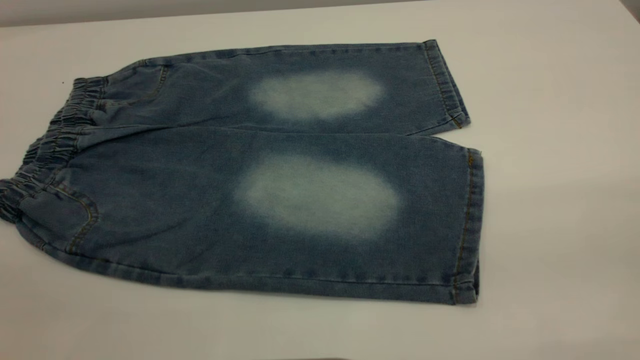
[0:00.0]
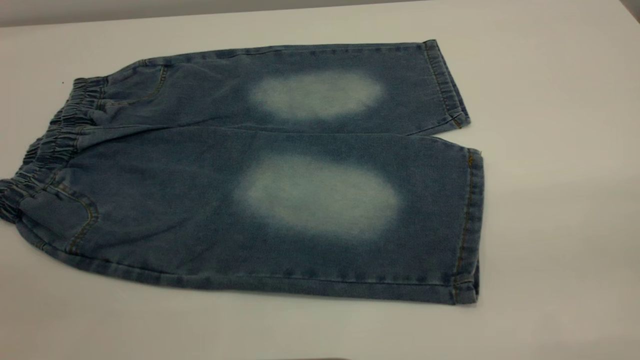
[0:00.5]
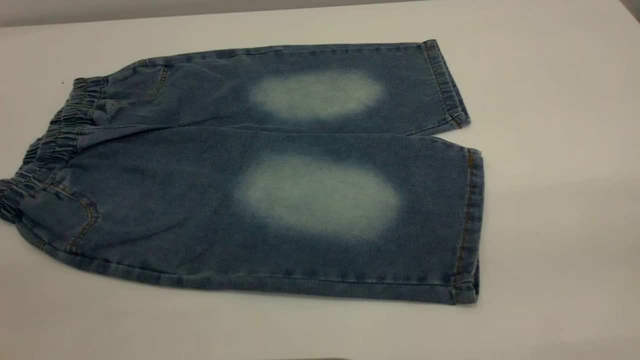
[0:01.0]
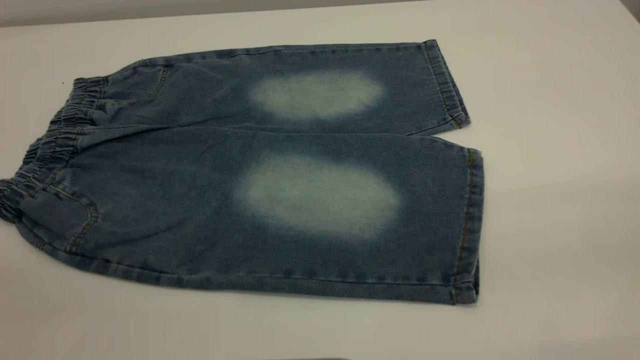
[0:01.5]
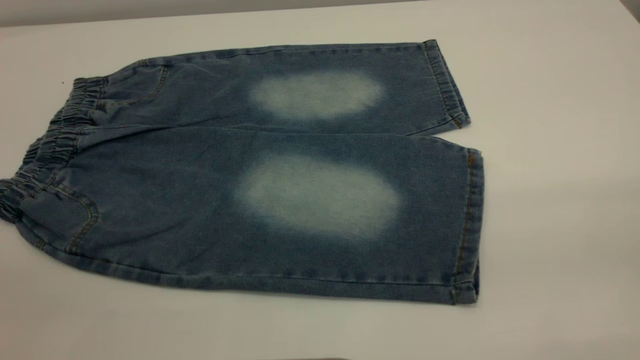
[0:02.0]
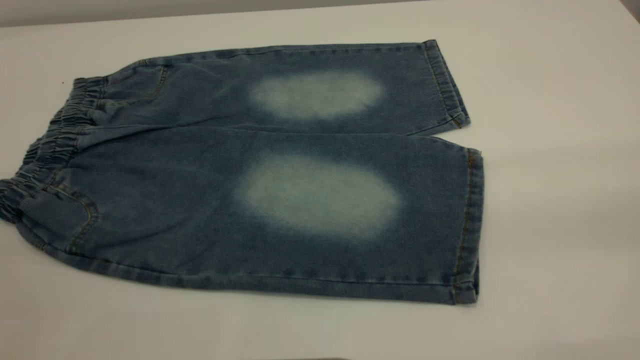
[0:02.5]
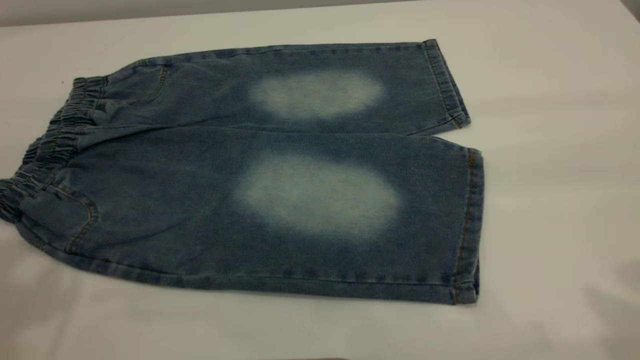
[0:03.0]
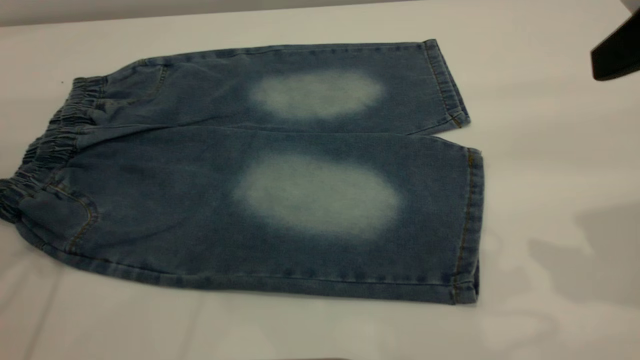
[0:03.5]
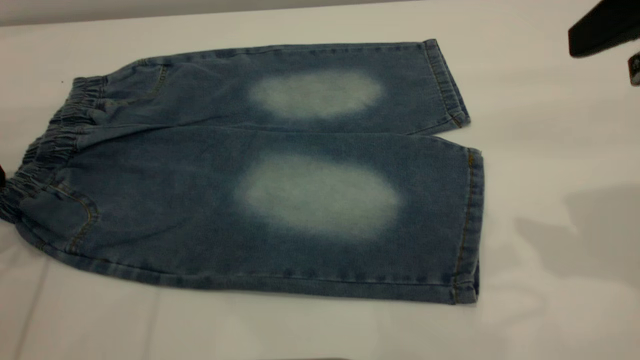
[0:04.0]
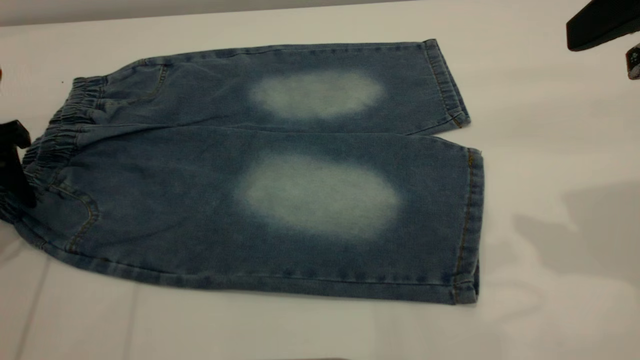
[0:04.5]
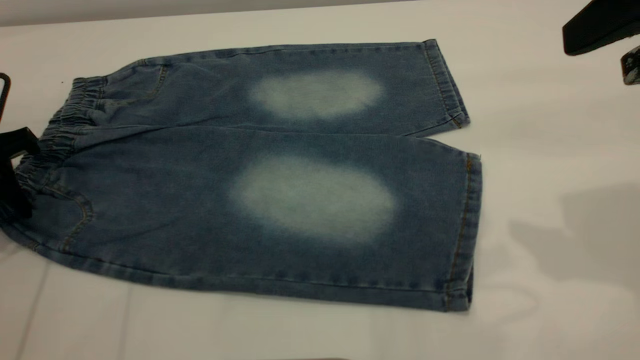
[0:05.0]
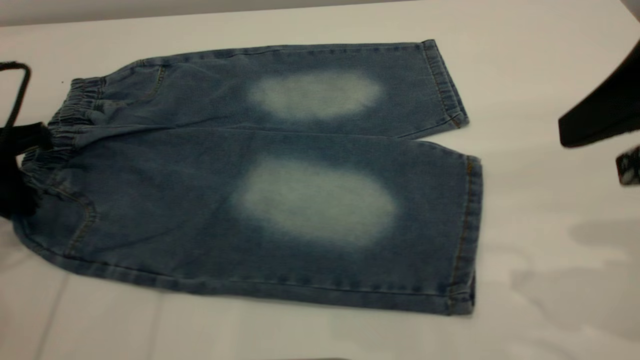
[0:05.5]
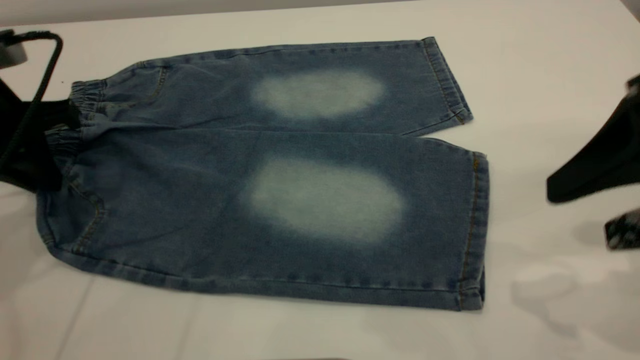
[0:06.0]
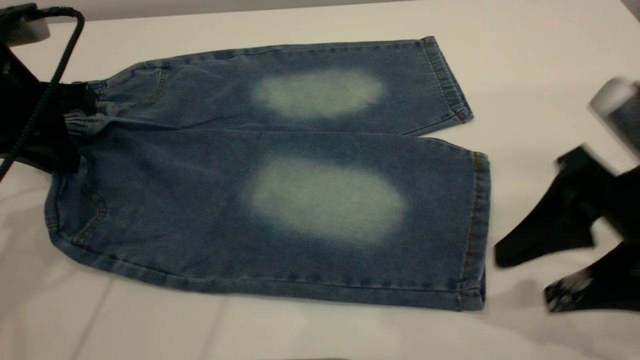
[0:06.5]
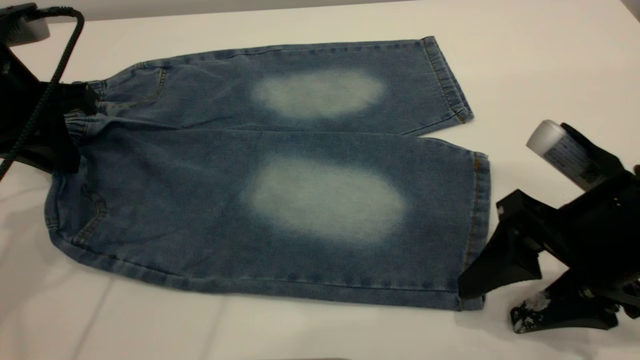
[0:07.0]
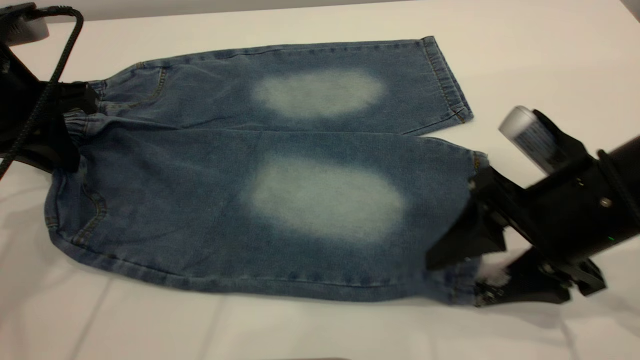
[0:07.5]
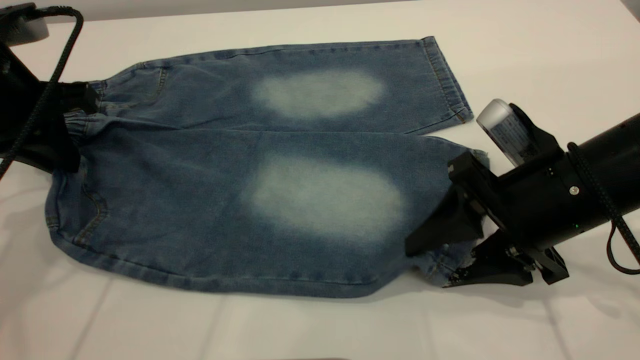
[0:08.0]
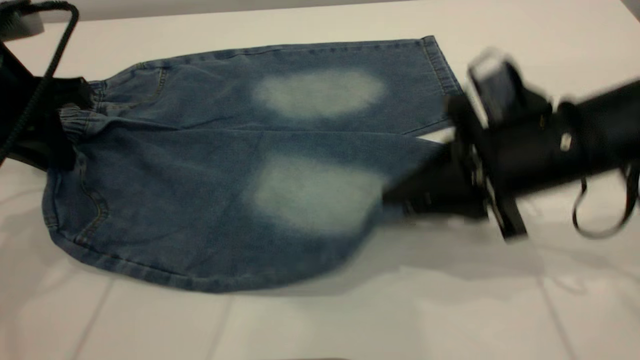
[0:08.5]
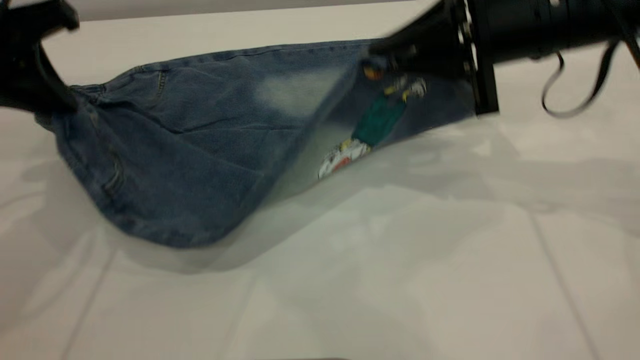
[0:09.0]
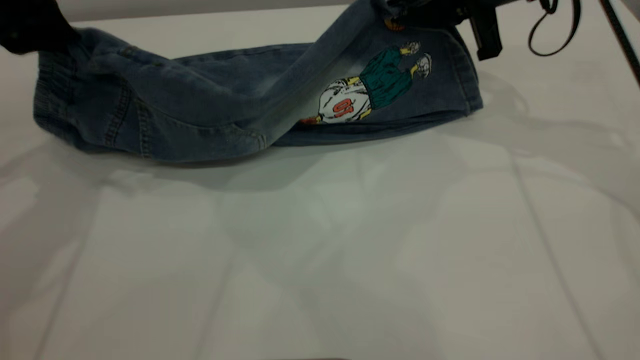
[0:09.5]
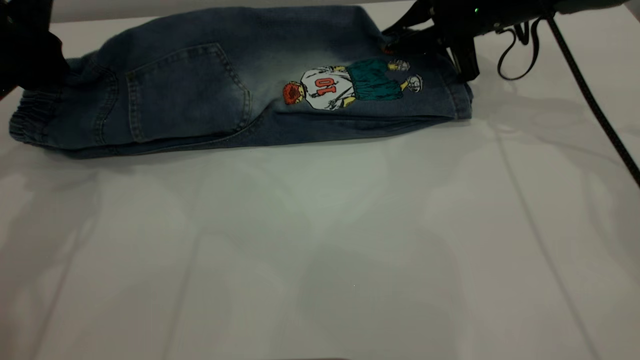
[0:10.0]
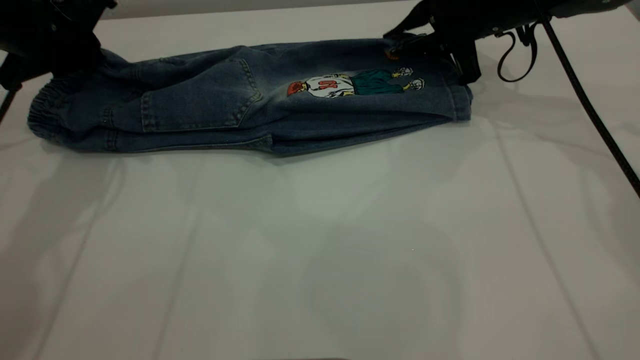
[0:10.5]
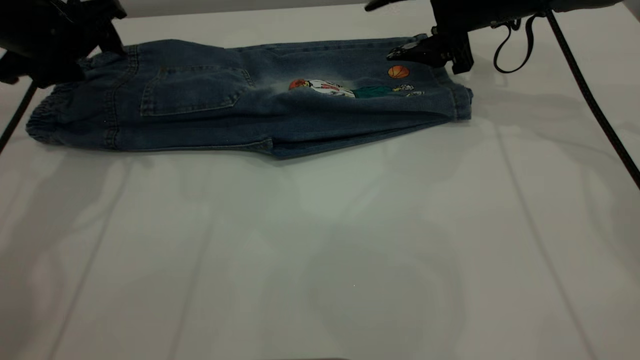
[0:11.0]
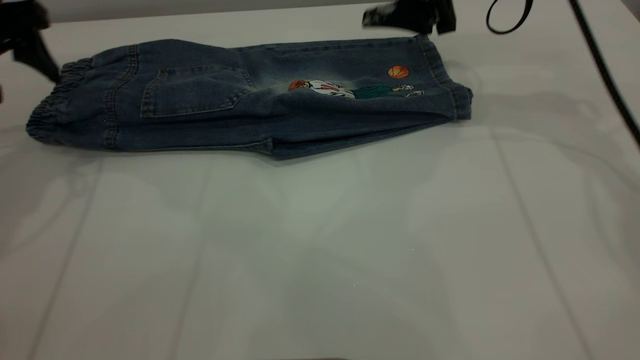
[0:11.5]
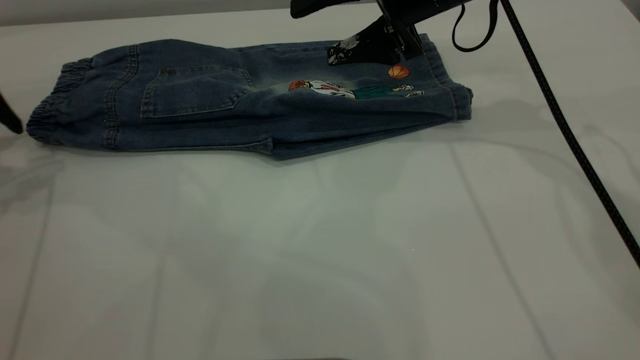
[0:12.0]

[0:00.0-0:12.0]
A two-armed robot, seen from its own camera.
Step, 0:00.0 to 0:11.0: Fold the bottom of the pants upward.
0:00.0 to 0:02.0: Both grippers stay about where they are.
0:02.0 to 0:04.0: The right gripper heads forward, covering about 25 cm.
0:04.0 to 0:06.0: The left gripper goes approximately 5 cm to the right, and closes. Meanwhile the right gripper heads downward, covering about 10 cm.
0:06.0 to 0:08.0: The right gripper travels downward, forward and to the left by roughly 15 cm, and closes.
0:08.0 to 0:10.0: The right gripper heads forward, covering approximately 20 cm, and closes. The left gripper heads forward, covering approximately 5 cm.
0:10.0 to 0:12.0: The grippers both shift to the left by about 10 cm. The right gripper opens its fingers. The left gripper opens its fingers.

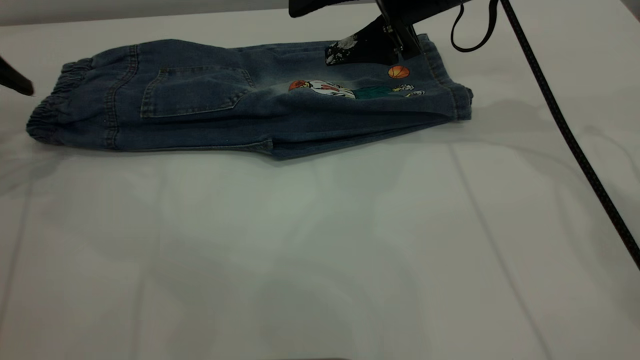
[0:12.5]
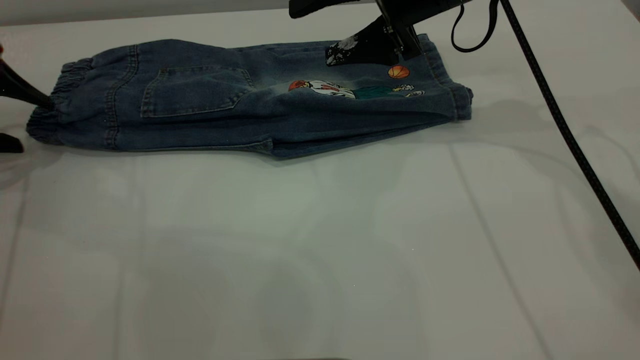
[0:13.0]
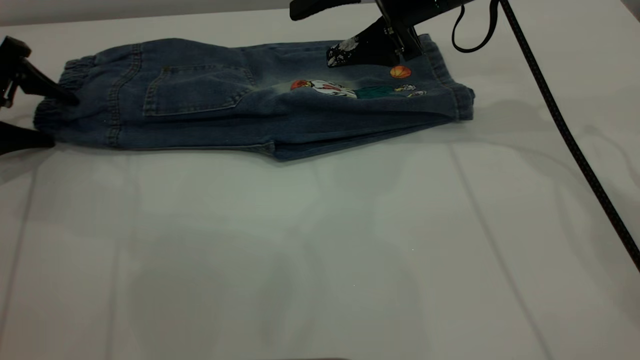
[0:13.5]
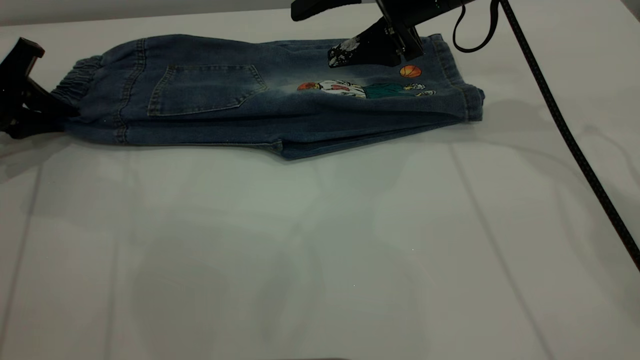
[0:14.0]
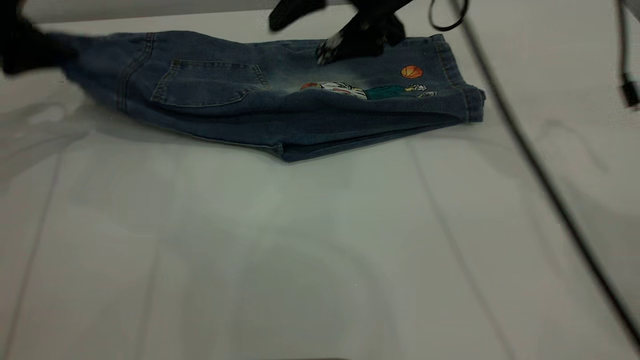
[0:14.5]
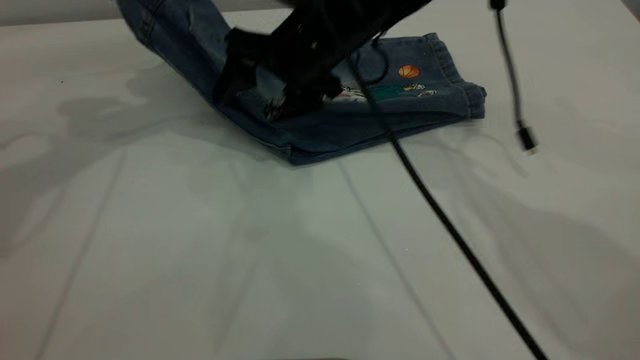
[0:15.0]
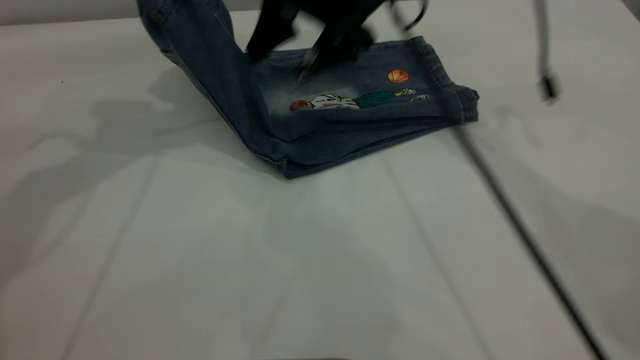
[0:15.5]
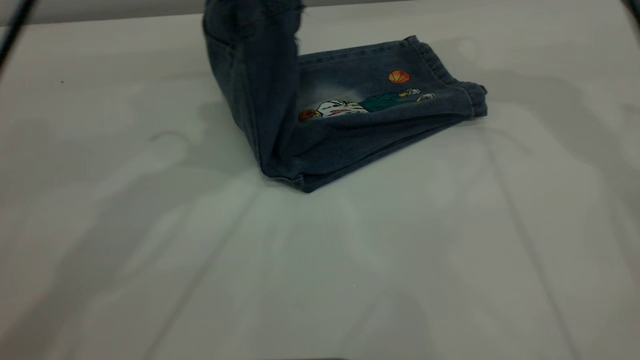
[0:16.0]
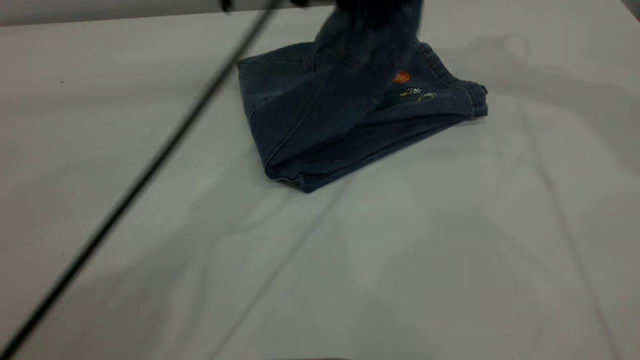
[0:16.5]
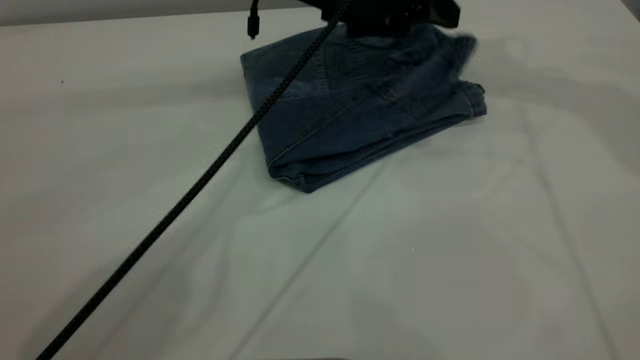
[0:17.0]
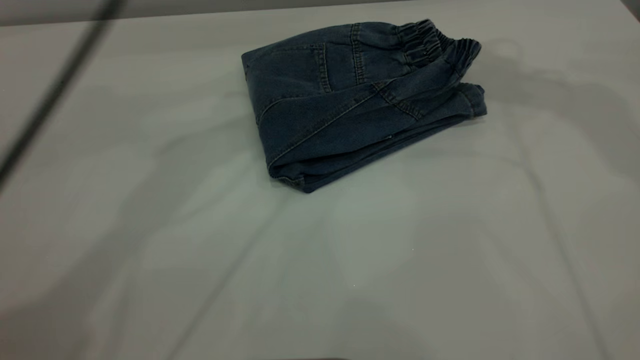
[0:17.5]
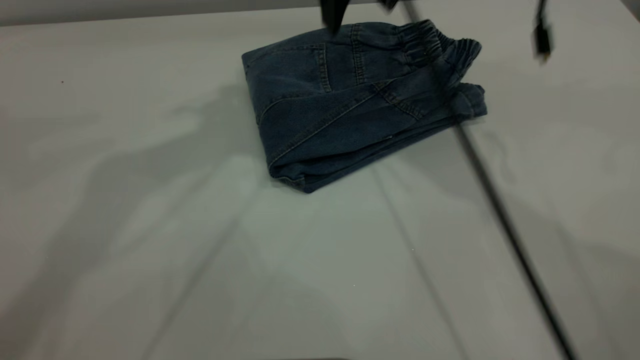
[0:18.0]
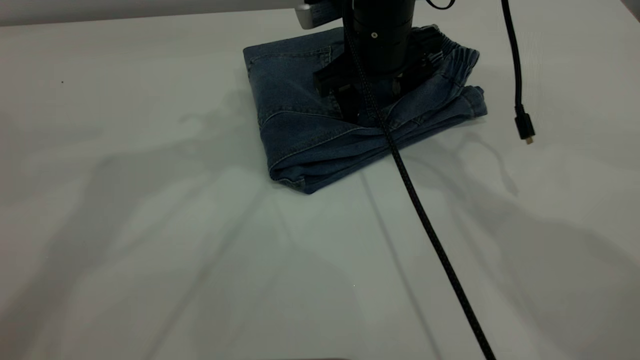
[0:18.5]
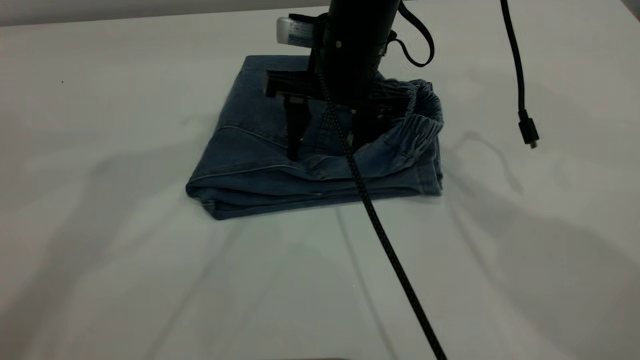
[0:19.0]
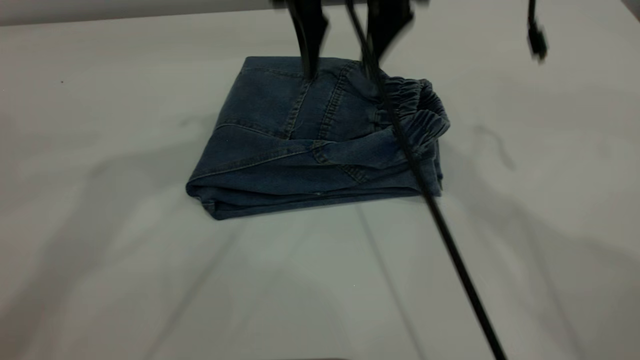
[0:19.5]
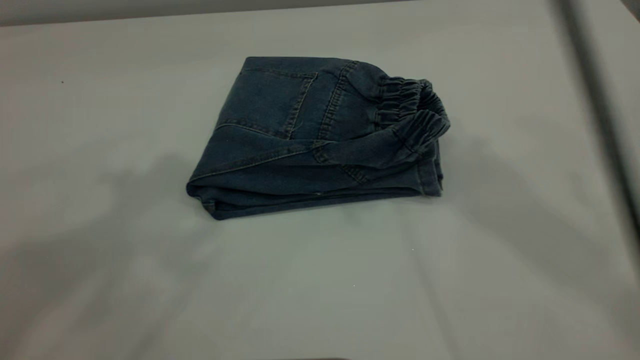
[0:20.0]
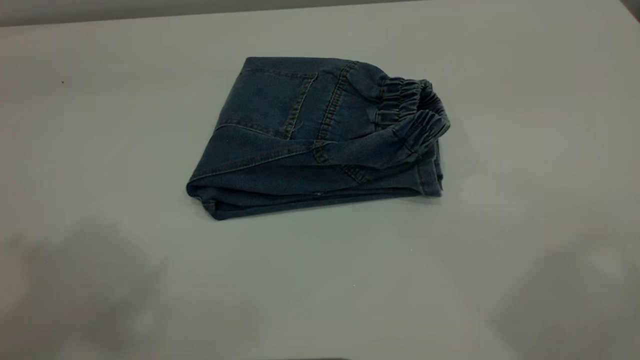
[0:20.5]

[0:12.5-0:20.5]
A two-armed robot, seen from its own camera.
Step, 0:12.5 to 0:17.0: Fold the pants from left to right.
0:12.5 to 0:14.5: The left gripper is displaced forward by approximately 5 cm, travels downward and back again, roughly 5 cm each way, and closes its fingers.
0:14.5 to 0:16.5: The right gripper shifts approximately 25 cm upward and to the right. Meanwhile the left gripper heads to the right, covering approximately 35 cm.
0:16.5 to 0:18.5: The left gripper goes some 25 cm upward and to the left, and opens up, while the right gripper is displaced downward and to the left by roughly 30 cm.
0:18.5 to 0:20.5: The left gripper heads backward, upward and to the left, covering some 25 cm. The right gripper heads upward and backward, covering about 40 cm.
